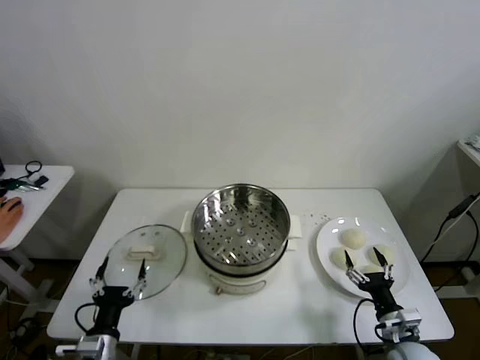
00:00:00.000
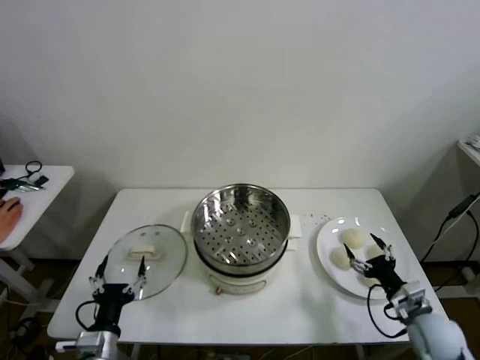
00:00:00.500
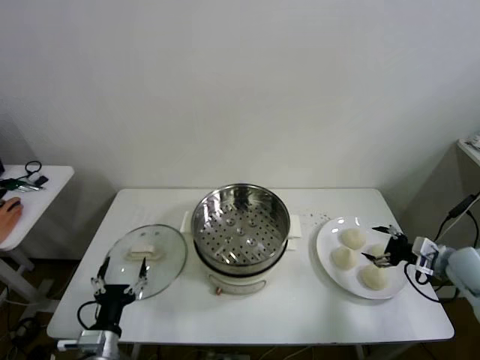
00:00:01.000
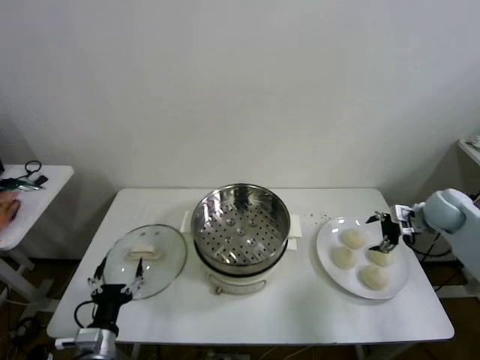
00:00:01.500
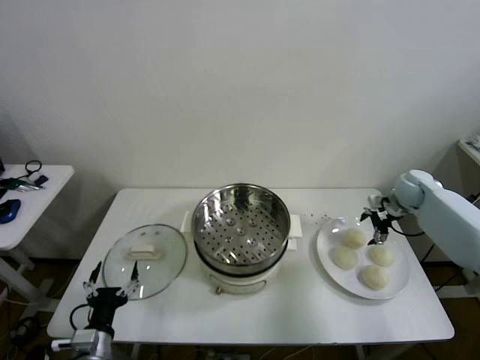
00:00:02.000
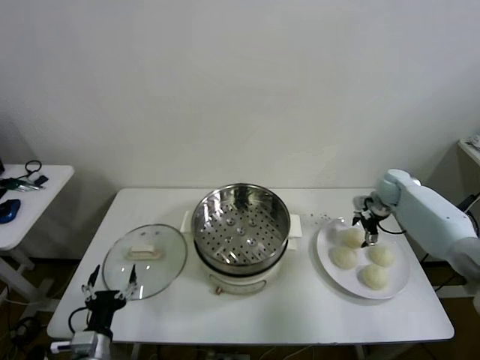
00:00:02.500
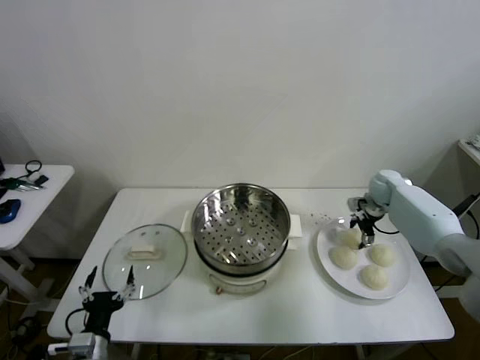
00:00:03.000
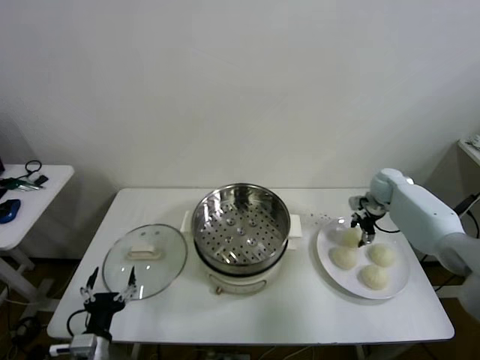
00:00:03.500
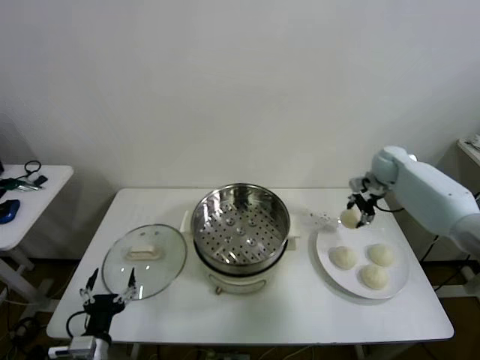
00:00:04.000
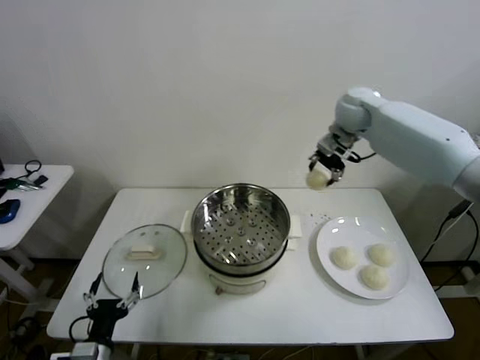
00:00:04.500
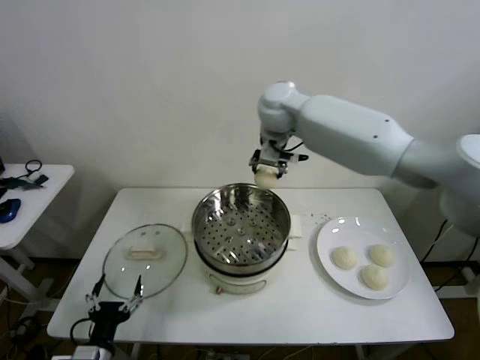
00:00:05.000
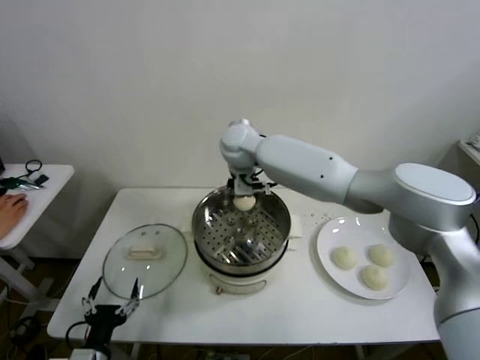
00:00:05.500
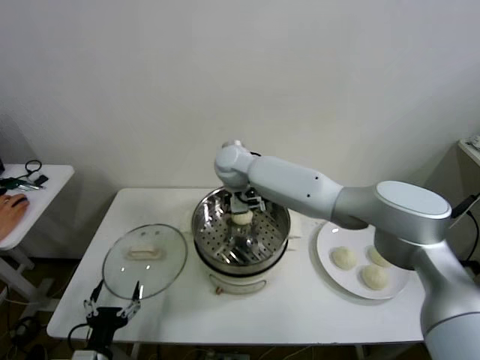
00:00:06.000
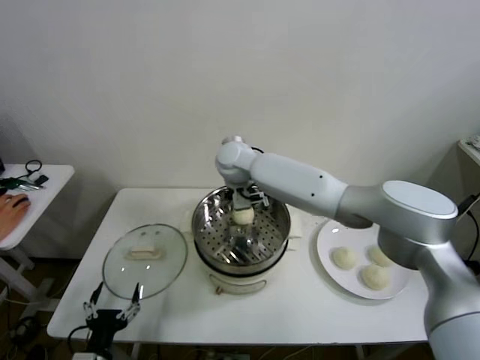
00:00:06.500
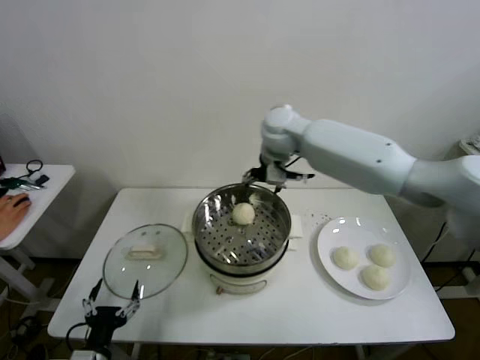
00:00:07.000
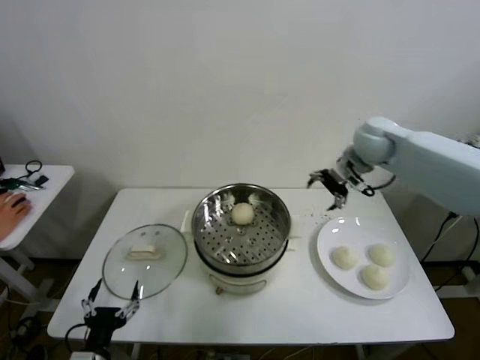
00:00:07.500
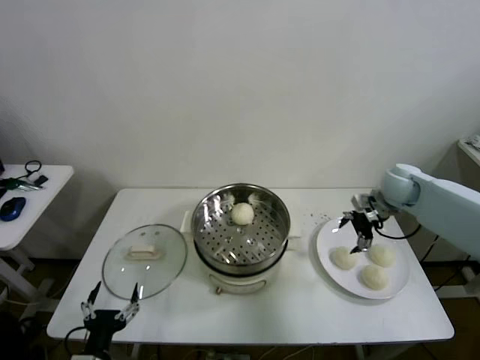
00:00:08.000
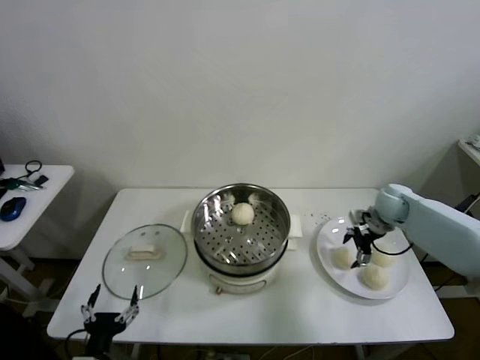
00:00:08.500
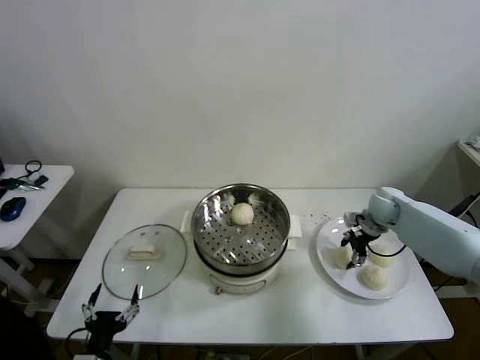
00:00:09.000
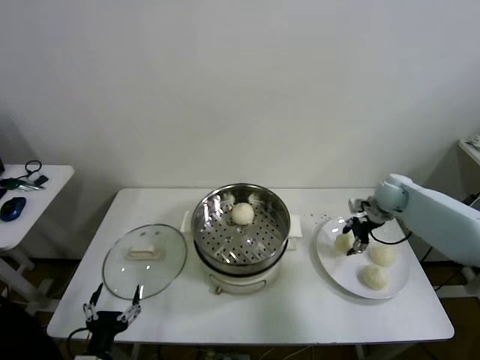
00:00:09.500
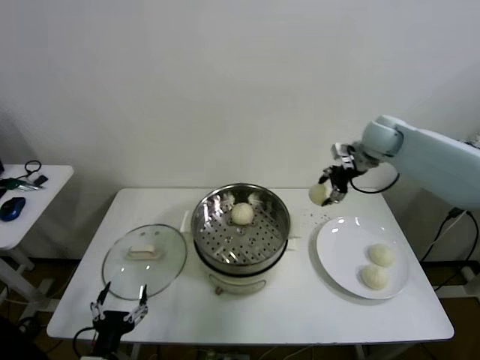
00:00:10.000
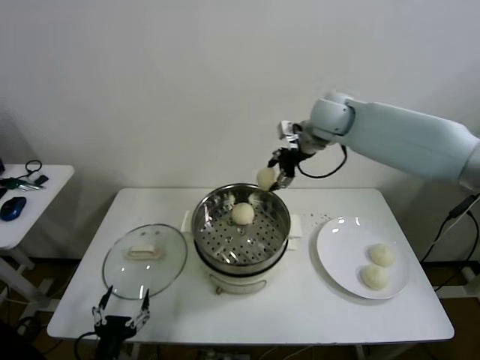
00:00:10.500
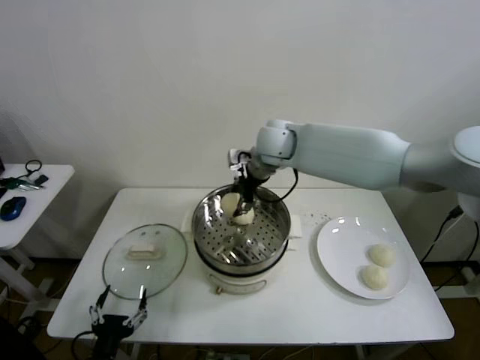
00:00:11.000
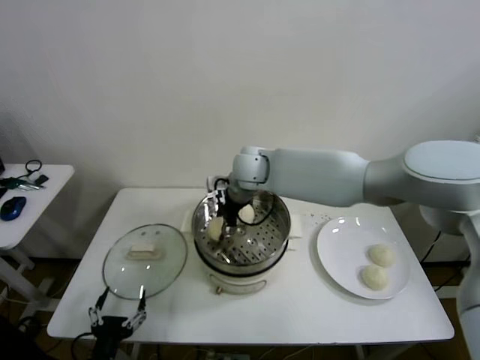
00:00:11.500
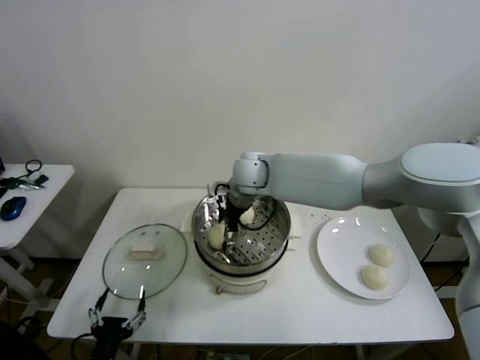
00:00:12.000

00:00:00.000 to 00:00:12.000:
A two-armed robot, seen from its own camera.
Step, 00:00:00.000 to 00:00:03.000: Grasp the baozi in the plate with right gripper.
Step, 00:00:03.500 to 00:00:06.000: Place the baozi on the steamer with right gripper.
Step, 00:00:06.500 to 00:00:09.000: Grasp the baozi in the plate with right gripper.
Step, 00:00:09.500 to 00:00:11.500: Place the baozi on the steamer with right gripper.
00:00:02.000 to 00:00:04.000: The right gripper travels upward, to the left and forward by approximately 15 cm, and closes its fingers.
00:00:04.000 to 00:00:06.000: The right gripper heads to the left, covering approximately 40 cm, and opens.
00:00:06.000 to 00:00:08.000: The right gripper moves to the right, approximately 40 cm, and opens.
00:00:08.000 to 00:00:10.000: The right gripper moves upward, to the left and forward, about 20 cm, and closes its fingers.
00:00:10.000 to 00:00:12.000: The right gripper heads to the left, covering roughly 30 cm, and opens up.

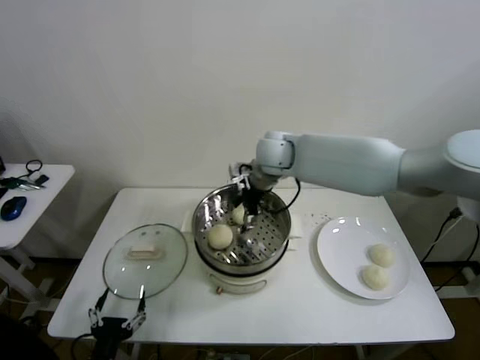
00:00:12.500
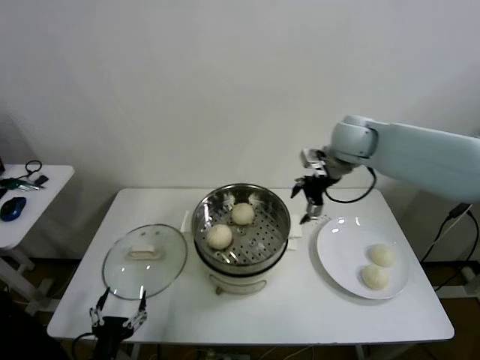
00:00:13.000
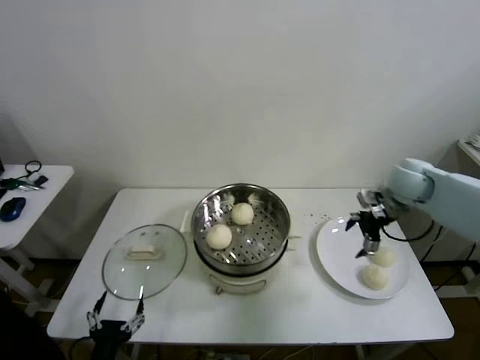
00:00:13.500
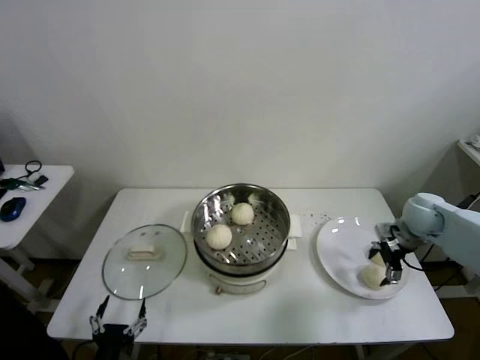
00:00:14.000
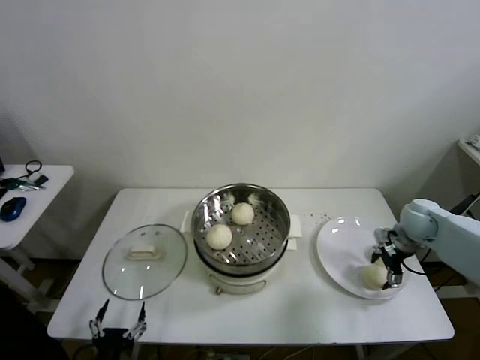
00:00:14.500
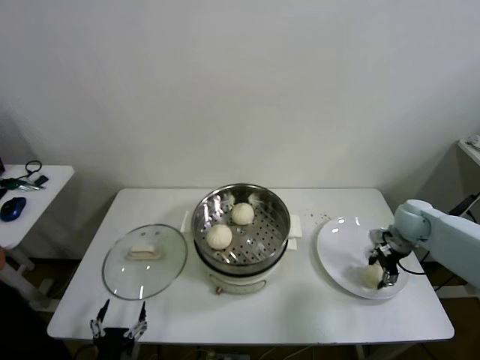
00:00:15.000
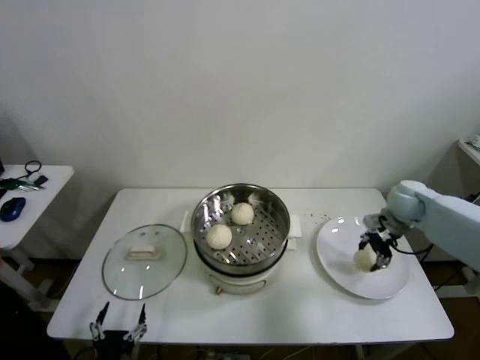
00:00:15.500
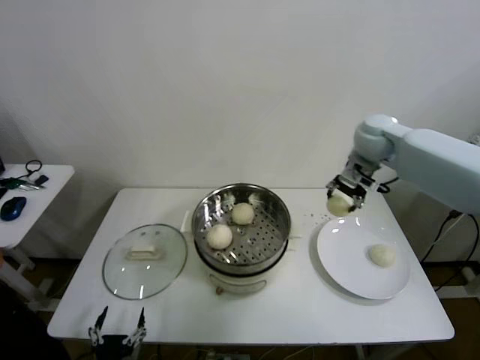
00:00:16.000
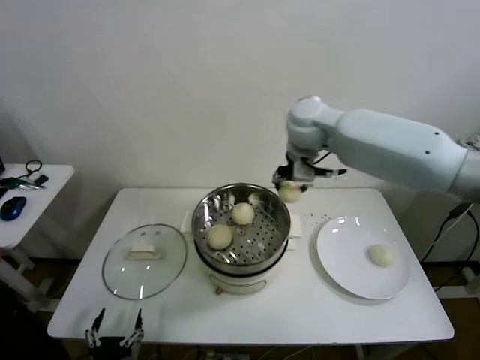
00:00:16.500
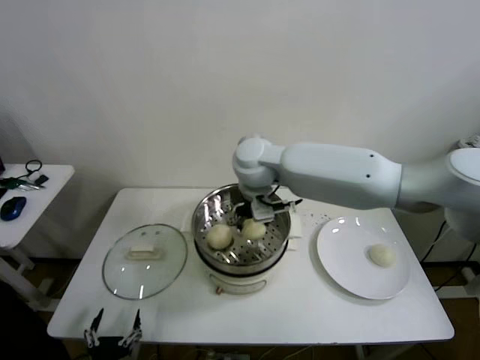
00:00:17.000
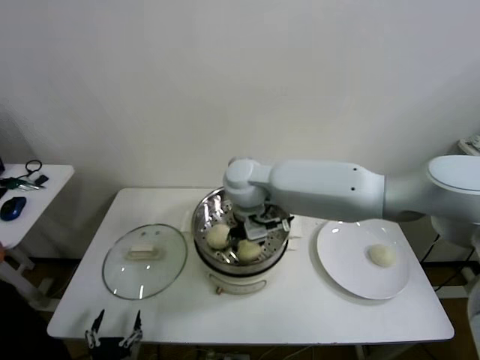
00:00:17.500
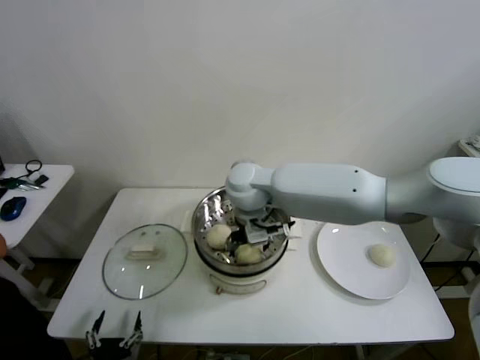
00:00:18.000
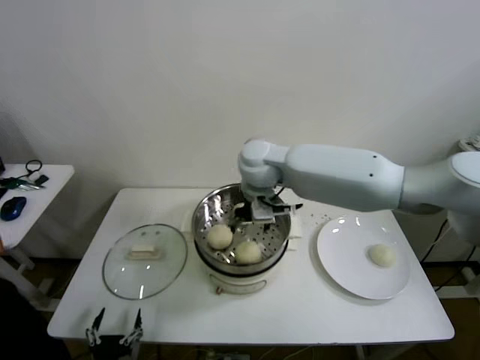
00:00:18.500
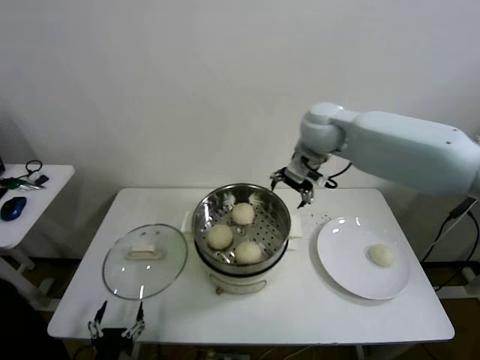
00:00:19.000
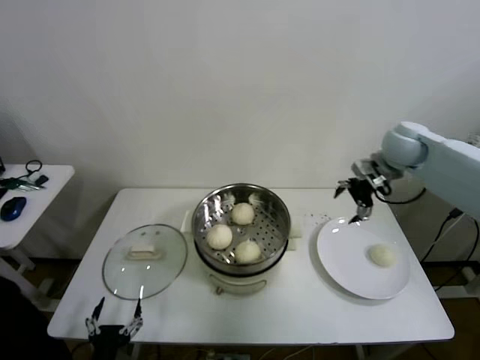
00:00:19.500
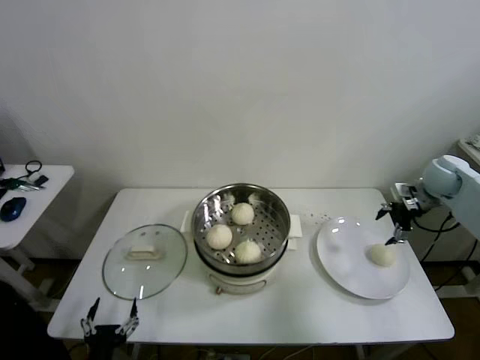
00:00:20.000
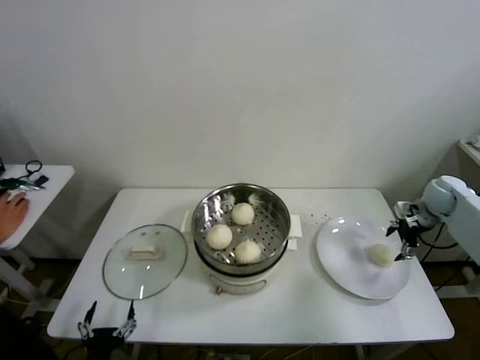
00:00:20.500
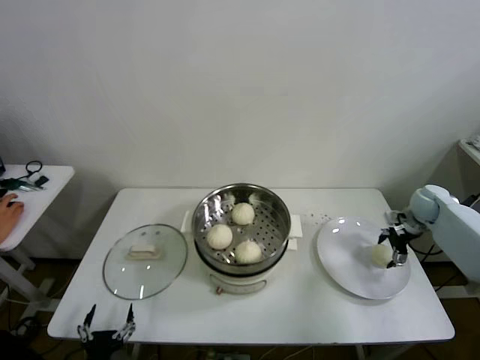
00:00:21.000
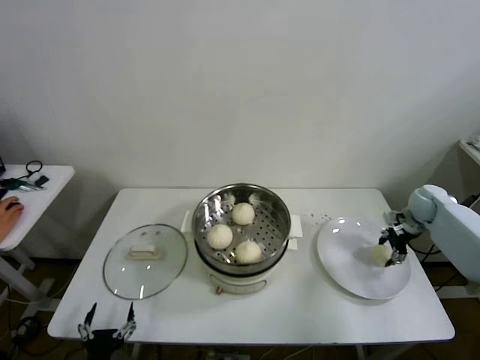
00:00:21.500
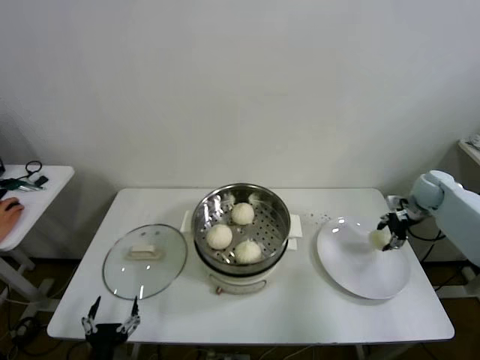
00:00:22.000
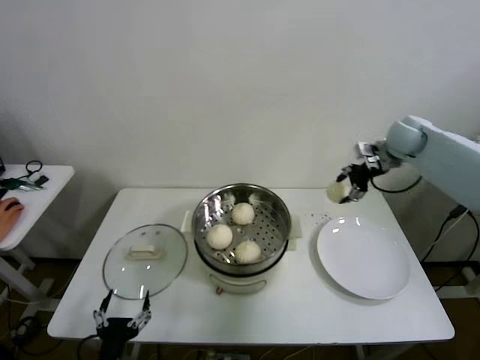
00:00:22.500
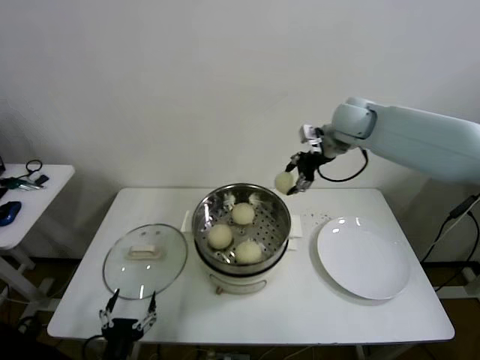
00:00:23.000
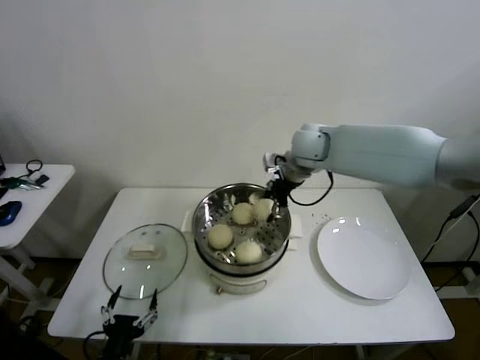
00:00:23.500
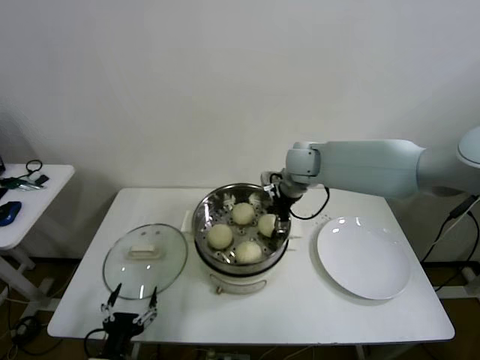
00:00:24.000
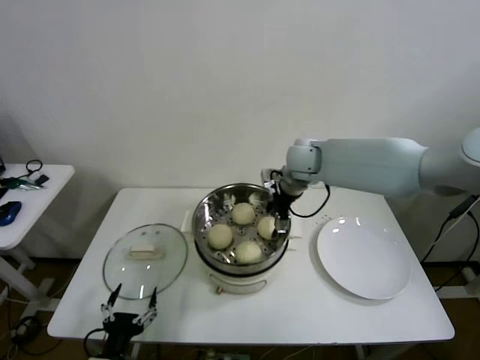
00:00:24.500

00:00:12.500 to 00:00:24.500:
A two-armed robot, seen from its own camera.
Step, 00:00:12.500 to 00:00:15.000: Grasp the baozi in the plate with right gripper.
Step, 00:00:15.500 to 00:00:18.000: Place the baozi on the steamer with right gripper.
Step, 00:00:18.500 to 00:00:21.500: Grasp the baozi in the plate with right gripper.
Step, 00:00:22.000 to 00:00:24.000: Place the baozi on the steamer with right gripper.
00:00:12.500 to 00:00:14.500: The right gripper moves to the right and downward, approximately 40 cm.
00:00:14.500 to 00:00:16.500: The right gripper is displaced to the left and upward by about 40 cm, and closes.
00:00:16.500 to 00:00:18.500: The right gripper moves to the left and downward, approximately 10 cm, and opens up.
00:00:18.500 to 00:00:20.500: The right gripper moves to the right, roughly 50 cm.
00:00:20.500 to 00:00:22.500: The right gripper shifts some 20 cm upward and to the left, and closes up.
00:00:22.500 to 00:00:24.500: The right gripper goes approximately 20 cm to the left, and opens up.

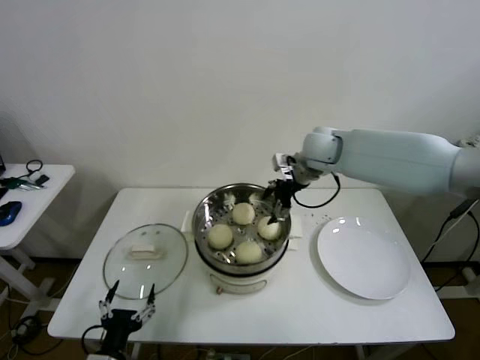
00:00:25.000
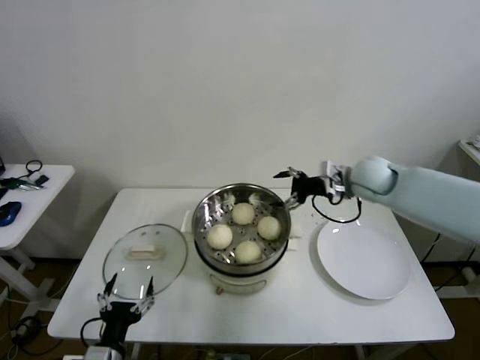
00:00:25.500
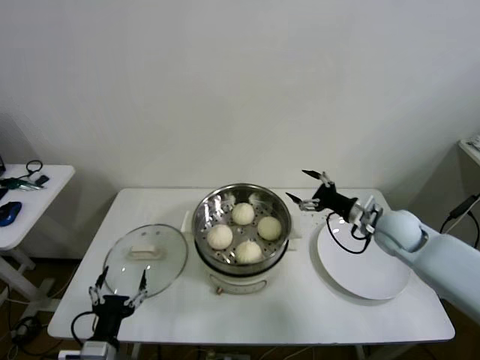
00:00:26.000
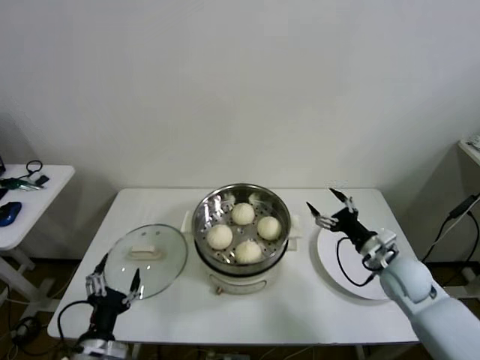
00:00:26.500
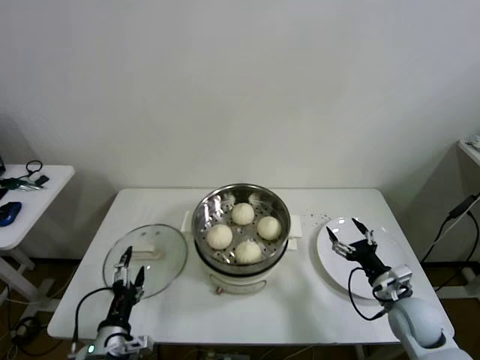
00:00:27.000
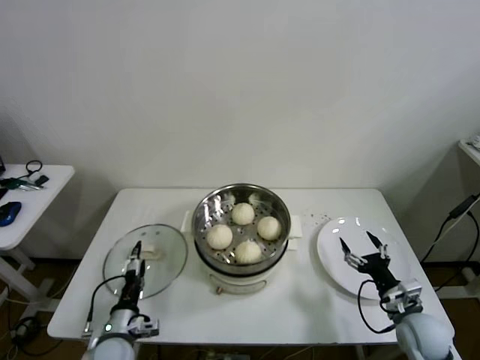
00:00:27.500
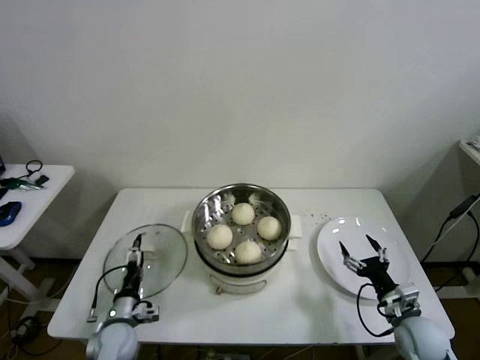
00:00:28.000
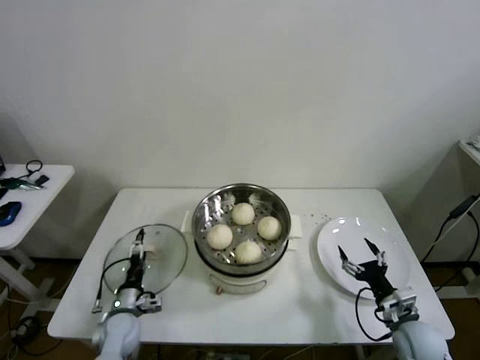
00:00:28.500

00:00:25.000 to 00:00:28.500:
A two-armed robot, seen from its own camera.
00:00:25.000 to 00:00:27.000: The right gripper travels backward, downward and to the right by about 40 cm. Meanwhile the left gripper moves forward, roughly 5 cm.
00:00:27.000 to 00:00:28.500: The right gripper shifts by approximately 5 cm, while the left gripper travels forward and downward by roughly 15 cm.
